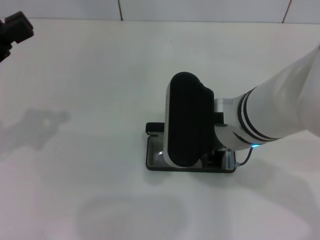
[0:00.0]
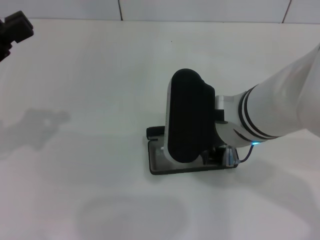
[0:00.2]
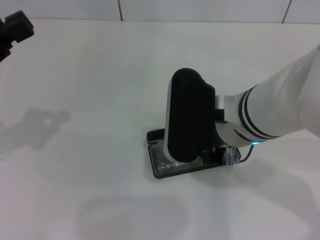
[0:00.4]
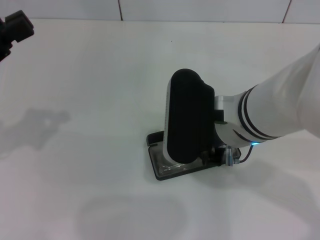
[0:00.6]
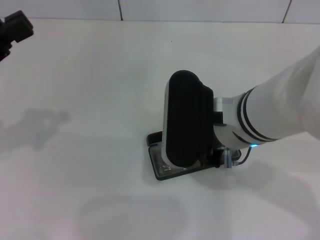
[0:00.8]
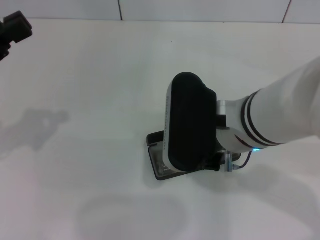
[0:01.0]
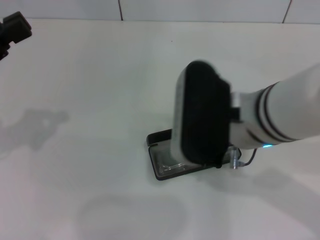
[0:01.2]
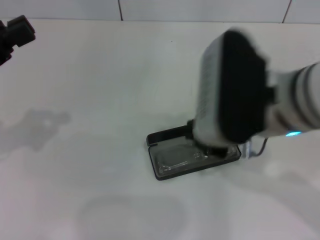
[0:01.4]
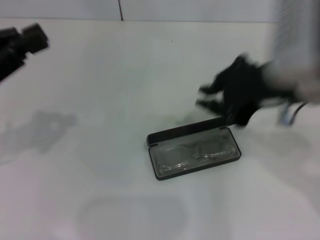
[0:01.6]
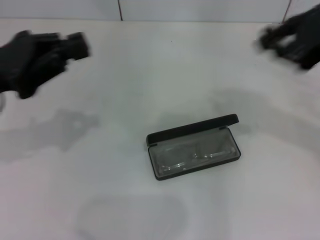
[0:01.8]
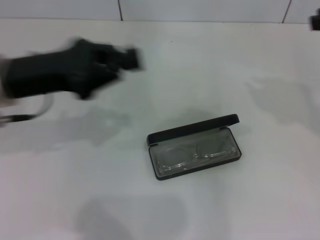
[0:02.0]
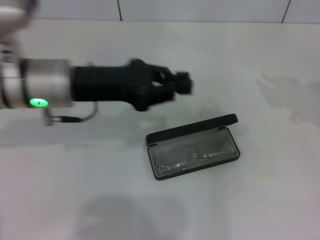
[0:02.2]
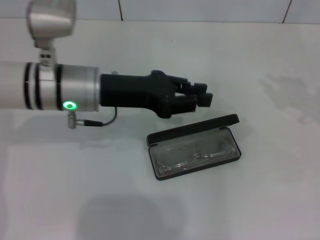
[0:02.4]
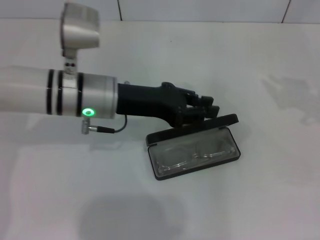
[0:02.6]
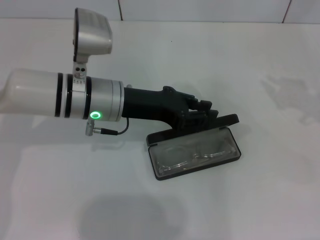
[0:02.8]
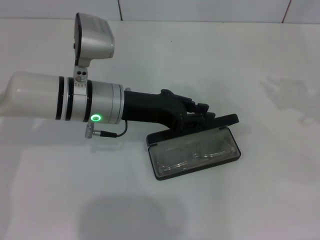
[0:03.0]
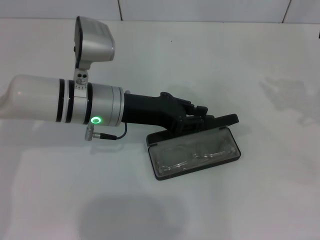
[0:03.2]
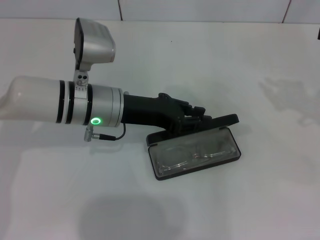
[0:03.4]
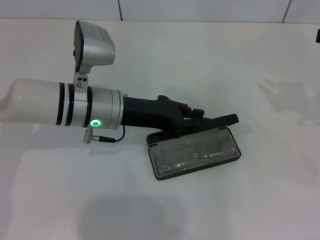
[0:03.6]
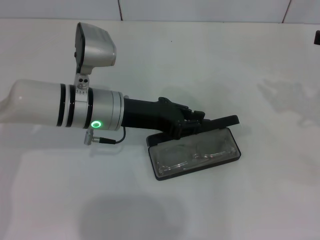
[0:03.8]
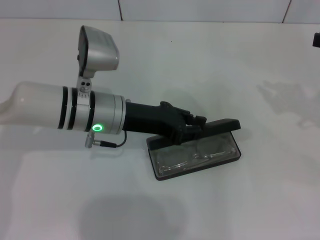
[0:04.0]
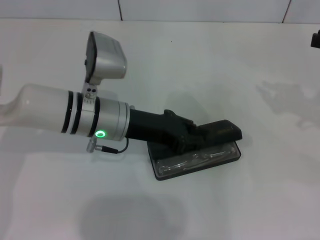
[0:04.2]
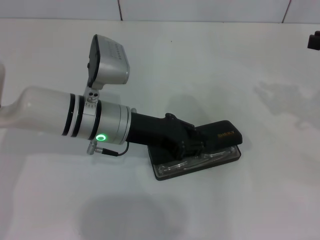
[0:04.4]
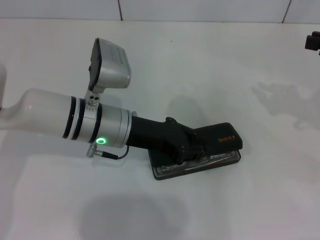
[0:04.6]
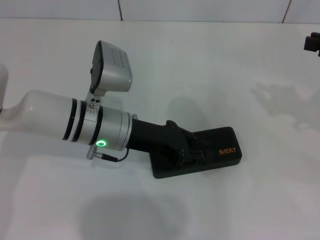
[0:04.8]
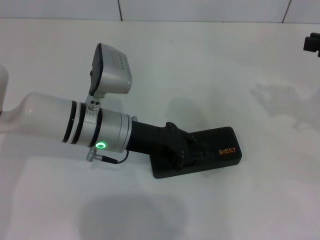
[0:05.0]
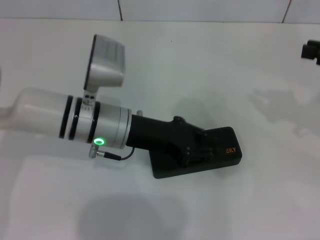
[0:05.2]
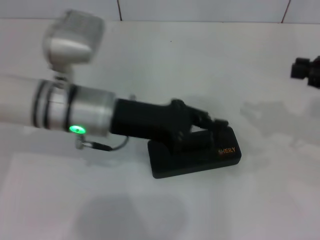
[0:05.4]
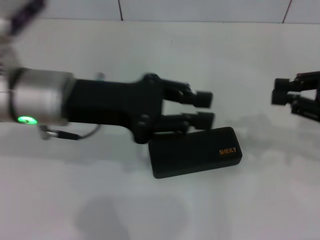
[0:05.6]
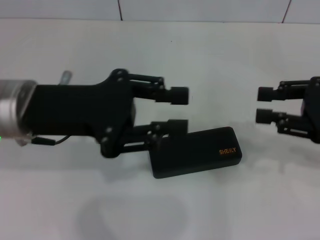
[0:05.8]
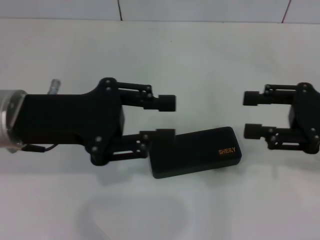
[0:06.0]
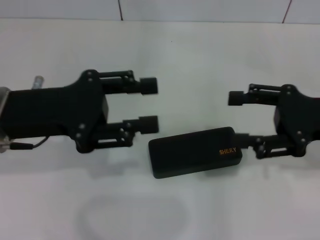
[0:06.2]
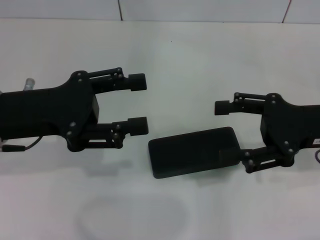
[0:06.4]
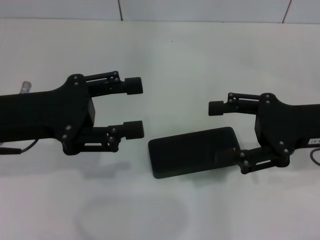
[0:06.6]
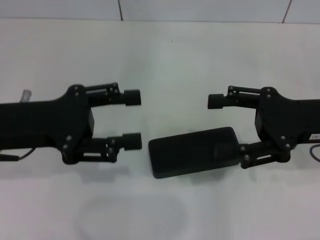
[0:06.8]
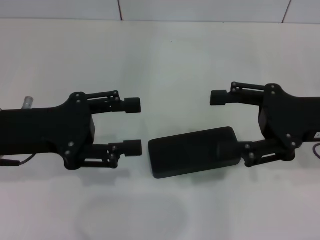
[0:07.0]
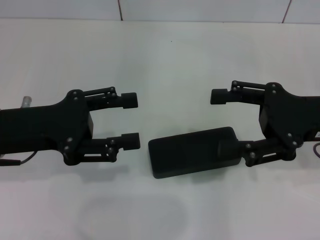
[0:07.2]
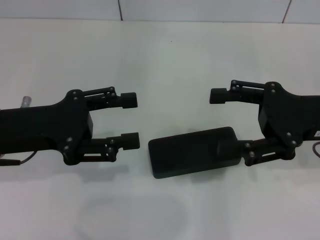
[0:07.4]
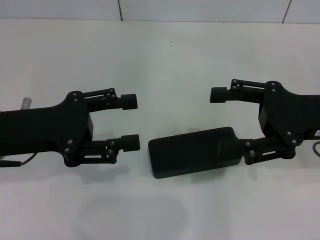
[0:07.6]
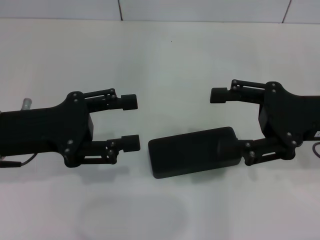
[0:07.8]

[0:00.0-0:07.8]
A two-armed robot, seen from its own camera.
Step, 0:01.4 to 0:05.0: Close the glasses case with your left hand.
0:00.0 to 0:01.6: The right gripper heads upward and to the right, covering about 10 cm.
0:01.6 to 0:03.2: The right gripper is displaced to the right by about 20 cm; the left gripper travels to the right, forward and downward by about 20 cm.
0:03.2 to 0:04.6: The grippers stay close to where they were, moving slightly.
0:04.6 to 0:06.2: The left gripper moves to the left, upward and backward, some 15 cm. Meanwhile the right gripper goes about 5 cm to the left, and opens up.
0:06.2 to 0:07.8: The left gripper opens its fingers.

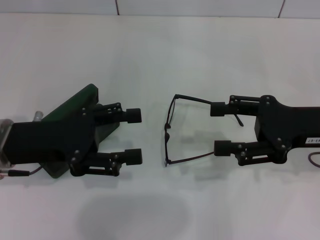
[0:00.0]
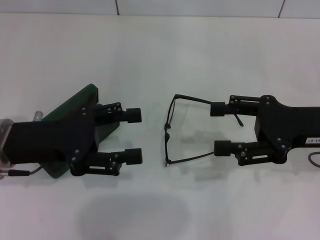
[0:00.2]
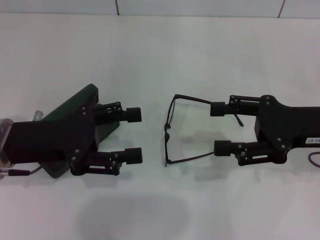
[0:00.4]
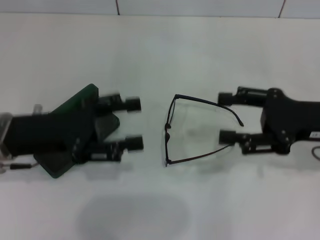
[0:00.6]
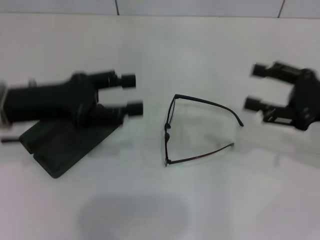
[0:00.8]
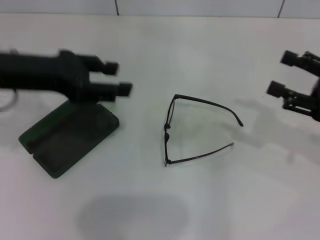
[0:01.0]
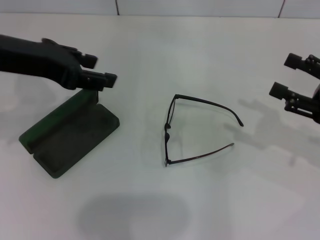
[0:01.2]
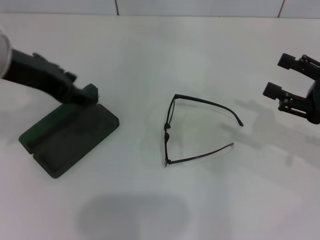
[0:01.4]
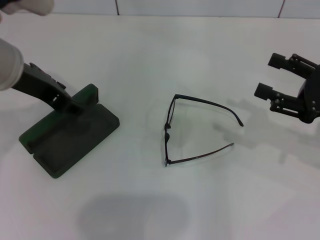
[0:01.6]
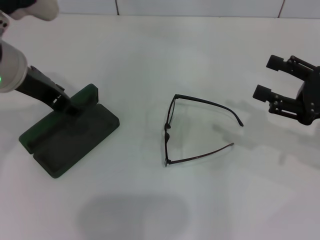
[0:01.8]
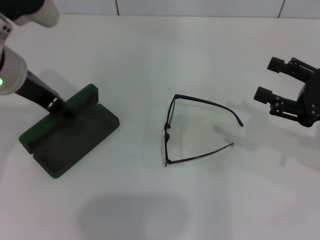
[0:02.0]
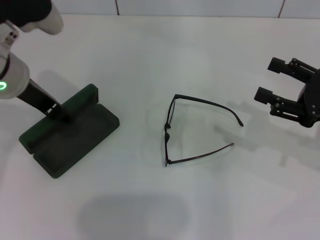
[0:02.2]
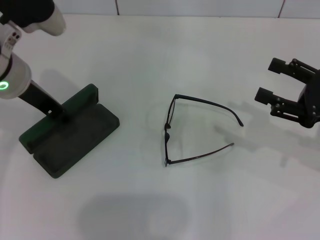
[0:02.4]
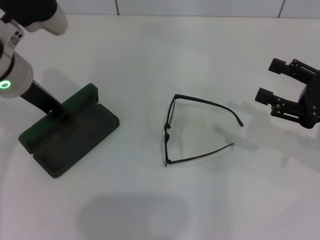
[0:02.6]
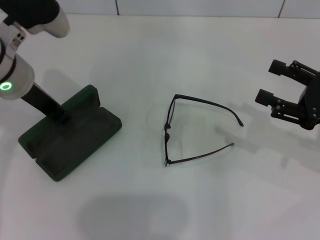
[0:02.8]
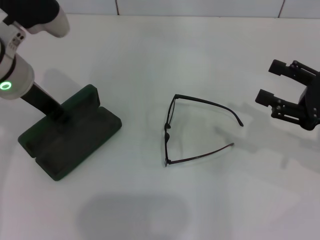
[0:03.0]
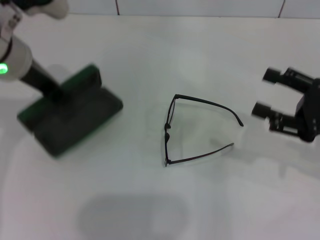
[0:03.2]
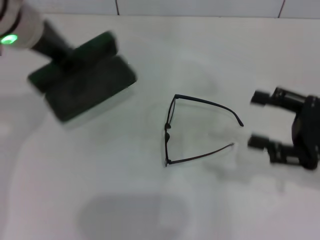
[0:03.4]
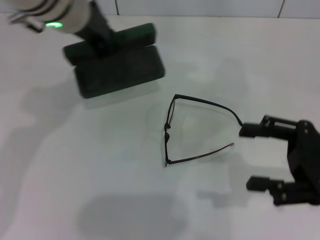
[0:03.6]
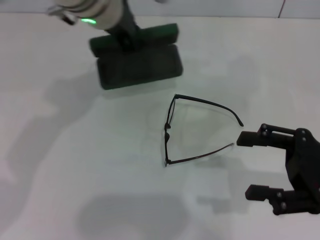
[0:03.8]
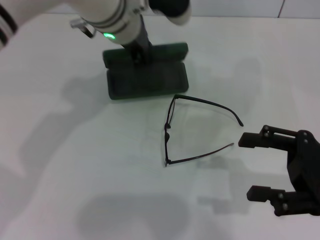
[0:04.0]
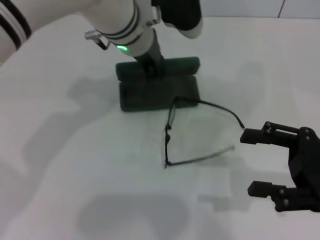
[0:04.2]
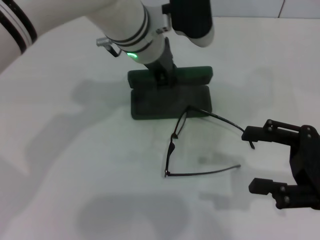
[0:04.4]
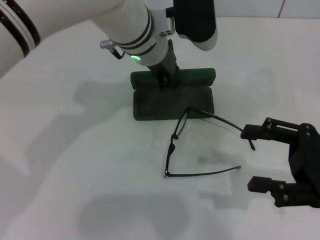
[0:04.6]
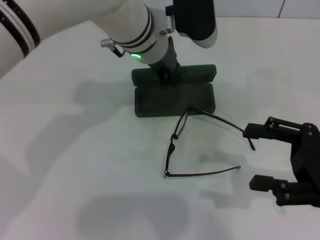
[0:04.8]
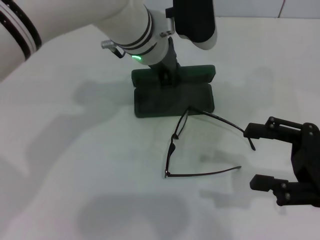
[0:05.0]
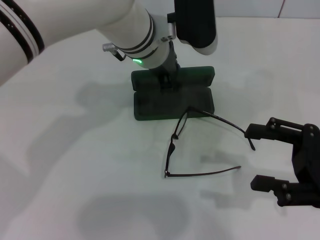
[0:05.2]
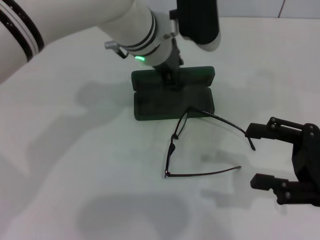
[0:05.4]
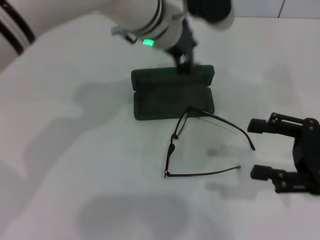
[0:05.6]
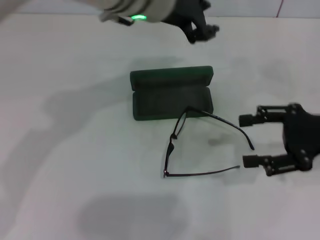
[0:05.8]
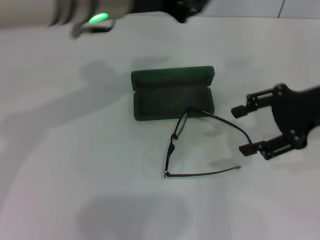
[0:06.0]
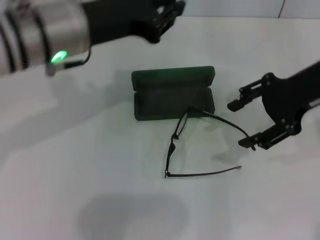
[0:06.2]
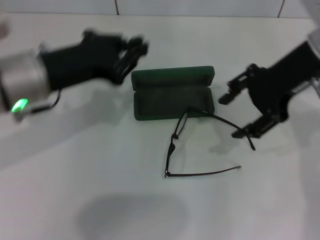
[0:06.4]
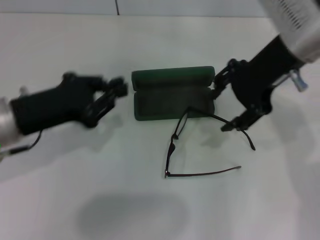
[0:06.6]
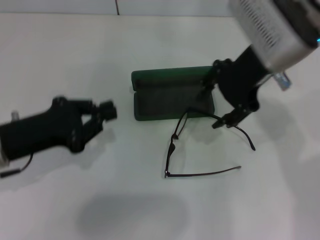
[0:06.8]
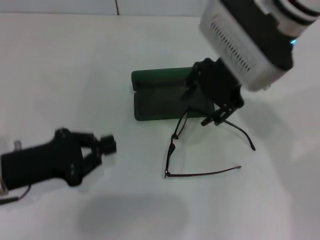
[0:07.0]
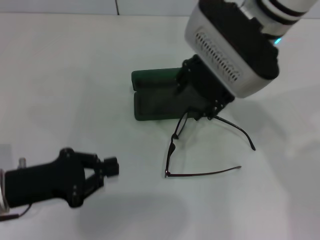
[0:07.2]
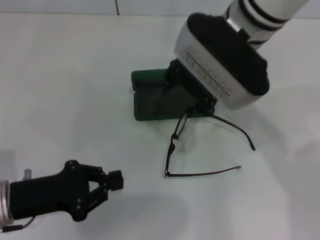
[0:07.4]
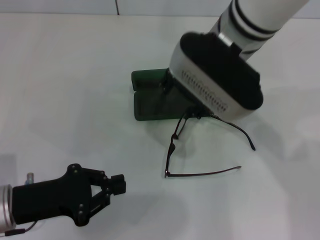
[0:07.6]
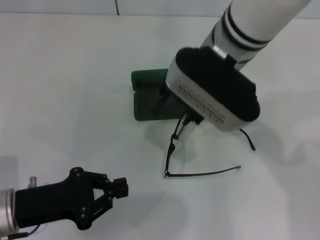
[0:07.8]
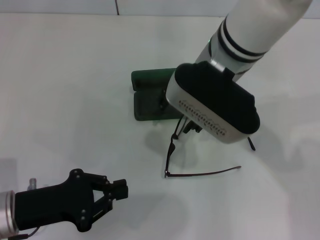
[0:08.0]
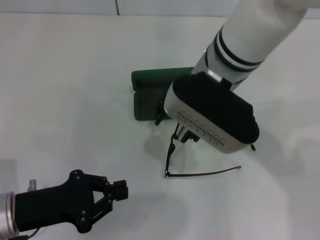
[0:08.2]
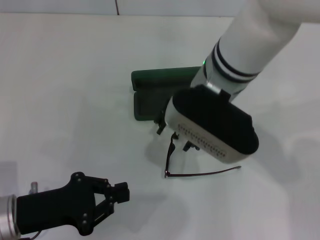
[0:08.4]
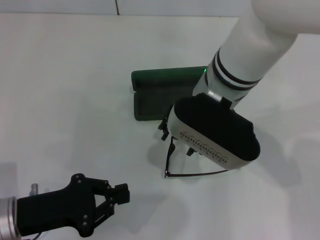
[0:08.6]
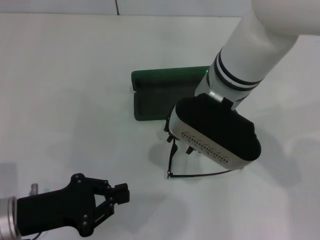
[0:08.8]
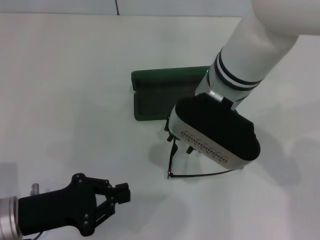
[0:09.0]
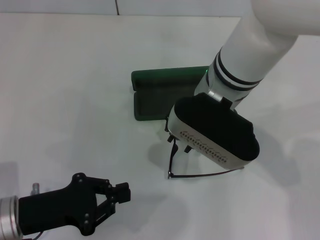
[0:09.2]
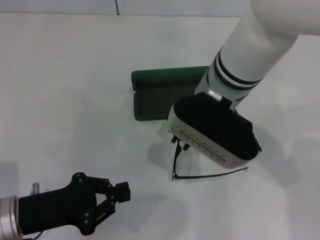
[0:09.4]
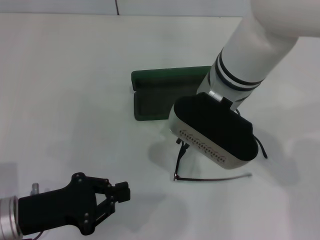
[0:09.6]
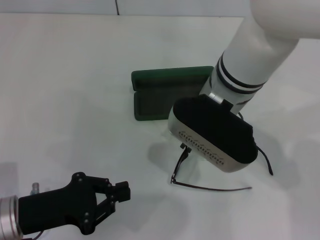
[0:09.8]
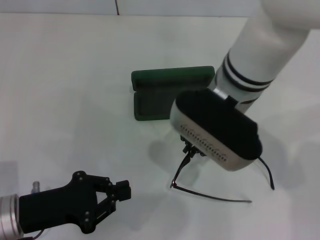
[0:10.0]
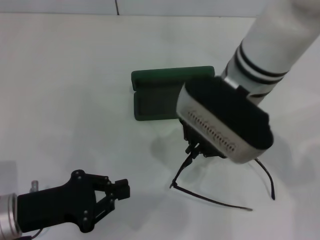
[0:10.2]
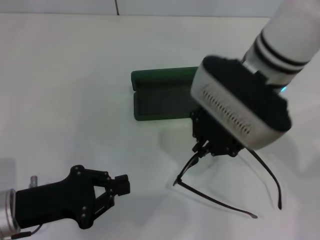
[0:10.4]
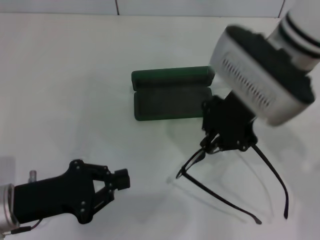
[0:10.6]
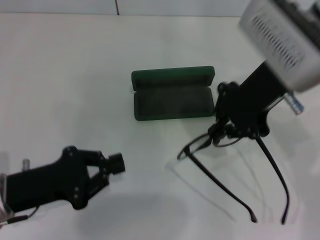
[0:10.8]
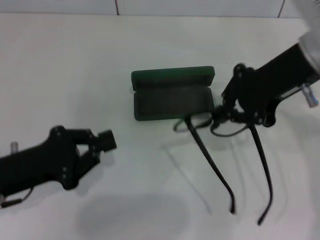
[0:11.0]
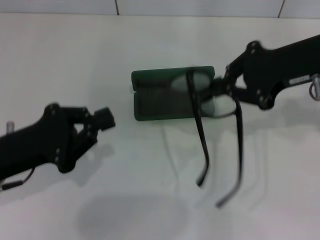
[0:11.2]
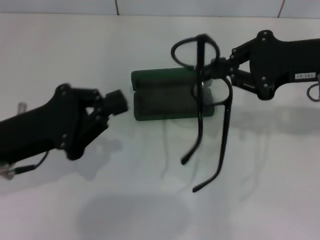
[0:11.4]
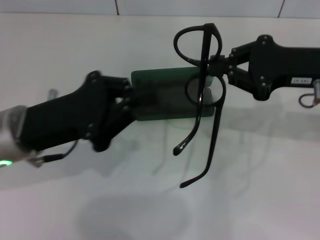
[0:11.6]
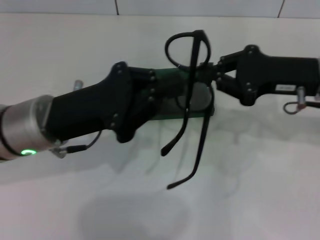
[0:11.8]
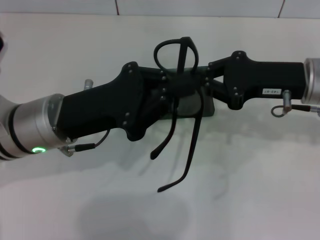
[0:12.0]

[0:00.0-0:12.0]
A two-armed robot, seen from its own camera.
Step, 0:00.0 to 0:02.6: Grab the glasses case with your left hand.
Step, 0:02.8 to 0:05.0: Place the glasses case in the center of the table with your left hand.
Step, 0:05.2 to 0:09.6: Grab the eyeglass frame with your right hand.
0:00.0 to 0:01.6: The left gripper is displaced upward and forward by roughly 10 cm, while the right gripper is displaced to the right by approximately 5 cm.
0:01.6 to 0:03.0: The left gripper closes its fingers.
0:03.0 to 0:04.4: The left gripper travels to the right by roughly 15 cm.
0:04.4 to 0:06.0: The right gripper moves forward and upward, about 10 cm. Meanwhile the left gripper travels upward and to the left by roughly 10 cm.
0:06.0 to 0:07.6: The left gripper shifts approximately 30 cm downward, backward and to the left, and closes up. Meanwhile the right gripper heads to the left, covering some 20 cm.
0:07.6 to 0:09.0: The right gripper shifts by about 5 cm.
0:09.0 to 0:10.4: The right gripper closes up.
0:10.4 to 0:12.0: The left gripper shifts about 15 cm forward, to the right and upward. Meanwhile the right gripper shifts some 15 cm to the right and downward.

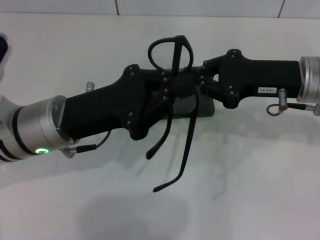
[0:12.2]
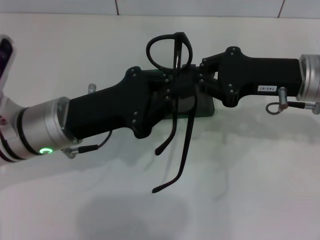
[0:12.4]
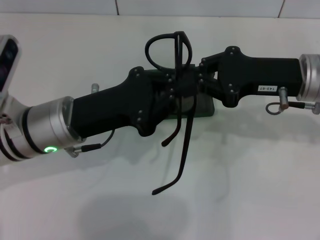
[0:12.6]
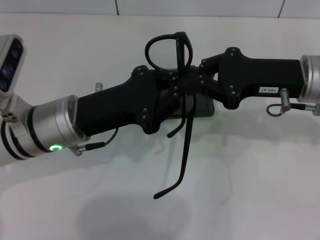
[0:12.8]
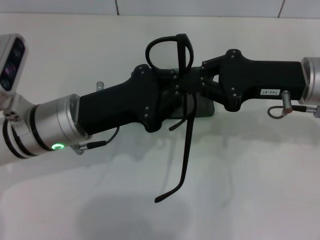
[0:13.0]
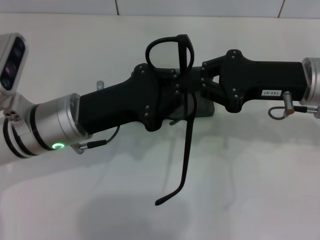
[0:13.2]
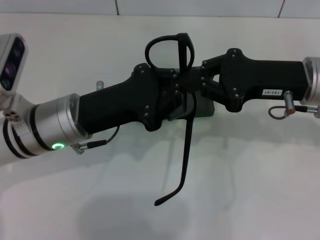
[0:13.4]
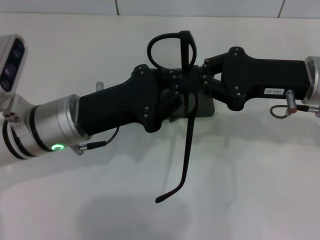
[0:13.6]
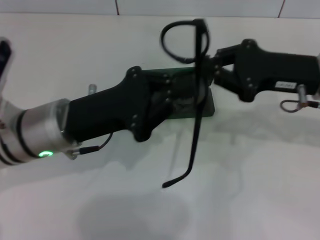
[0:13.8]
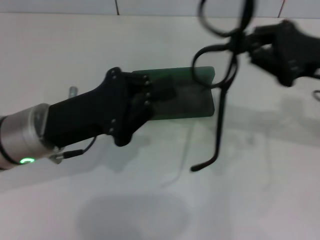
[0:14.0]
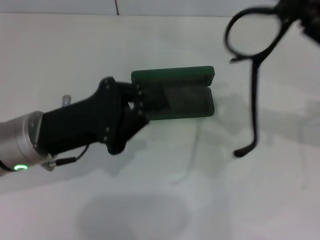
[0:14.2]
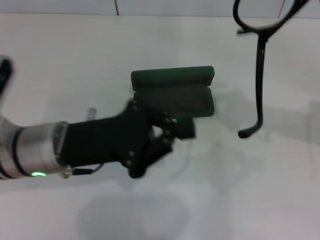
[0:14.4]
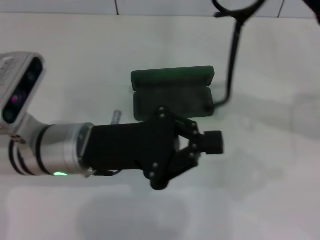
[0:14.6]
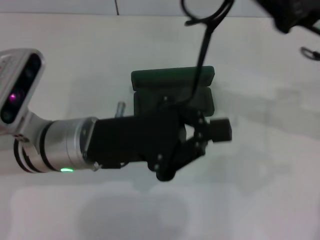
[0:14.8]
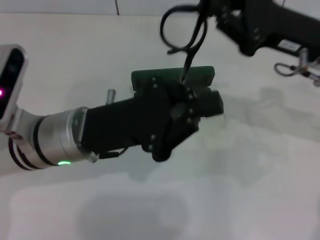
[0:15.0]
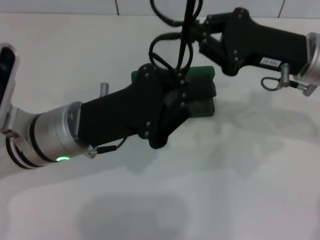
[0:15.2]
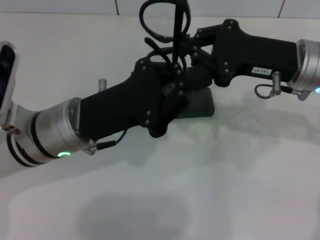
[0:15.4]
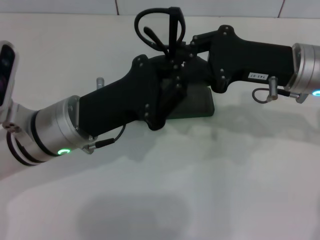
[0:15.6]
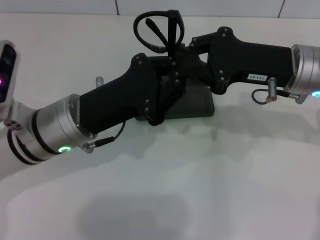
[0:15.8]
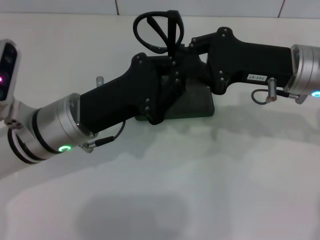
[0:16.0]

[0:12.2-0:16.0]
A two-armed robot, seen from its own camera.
0:12.2 to 0:13.4: The grippers make only small movements.
0:13.4 to 0:14.8: The right gripper goes to the right and returns, approximately 10 cm each way.
0:14.8 to 0:16.0: The right gripper moves some 5 cm.
